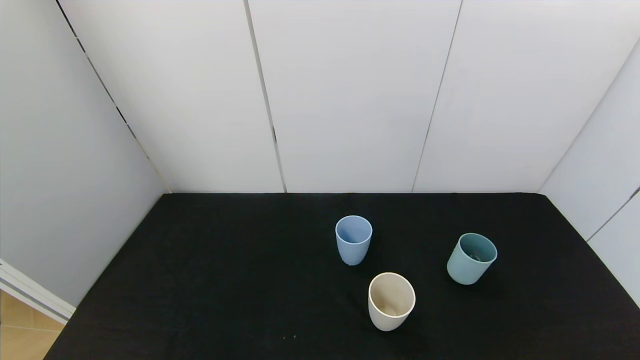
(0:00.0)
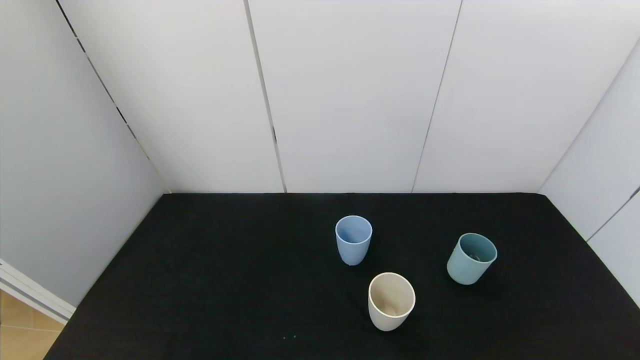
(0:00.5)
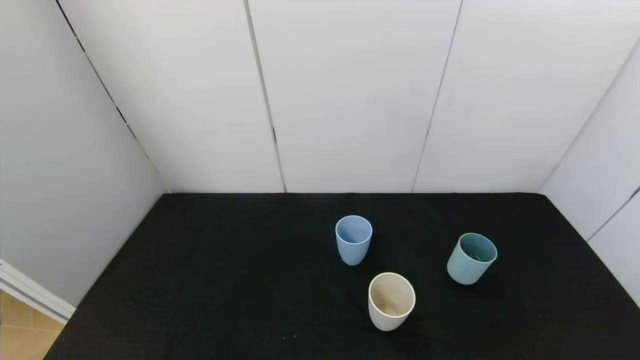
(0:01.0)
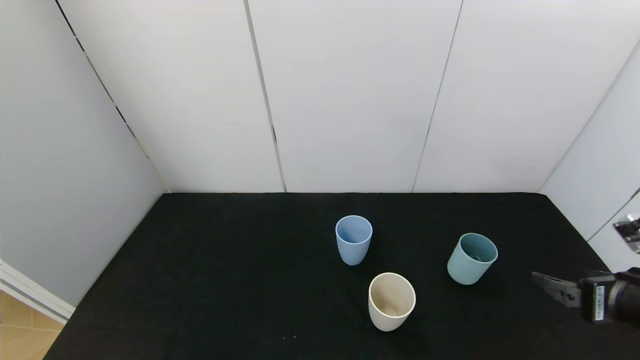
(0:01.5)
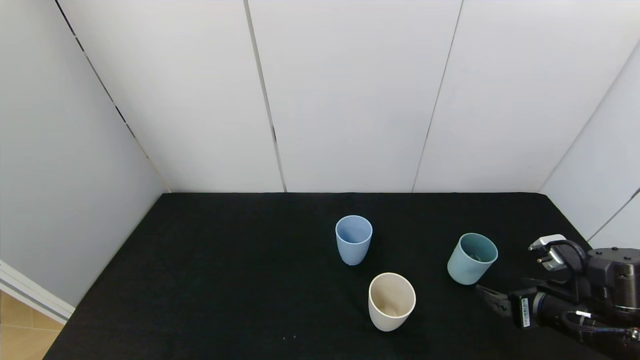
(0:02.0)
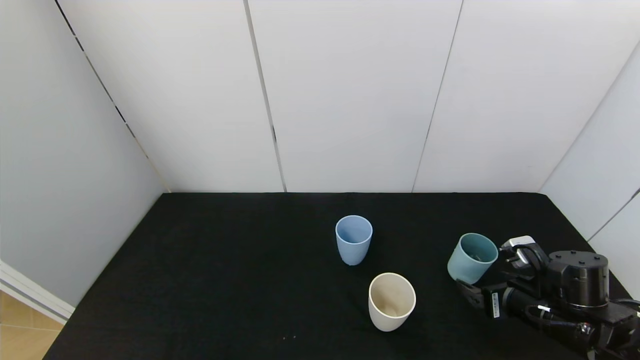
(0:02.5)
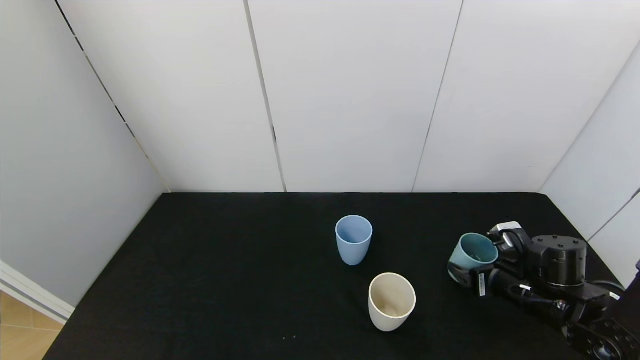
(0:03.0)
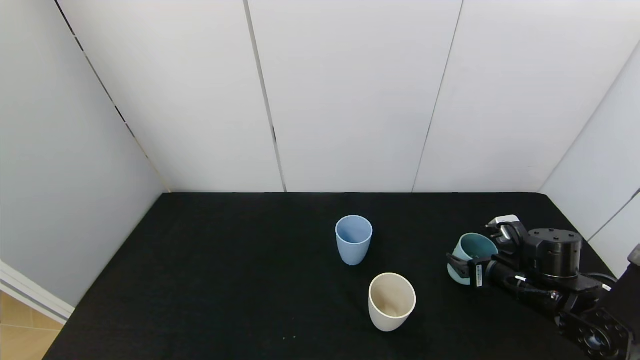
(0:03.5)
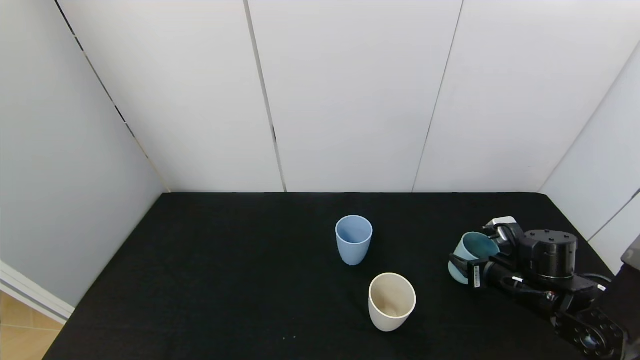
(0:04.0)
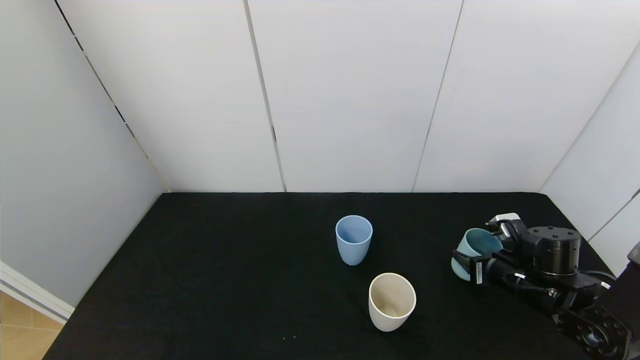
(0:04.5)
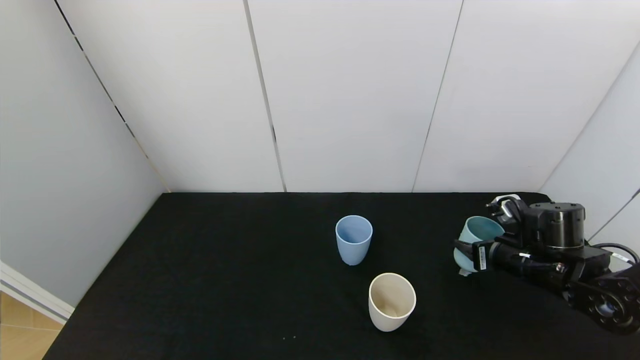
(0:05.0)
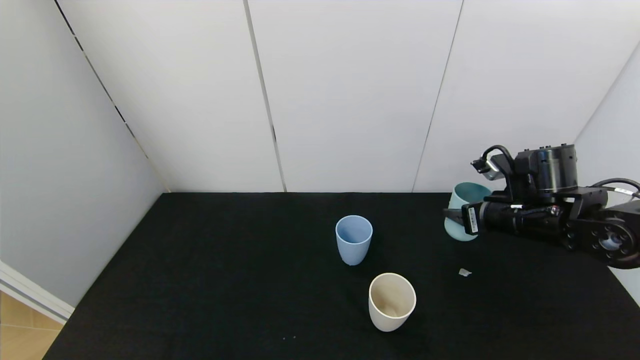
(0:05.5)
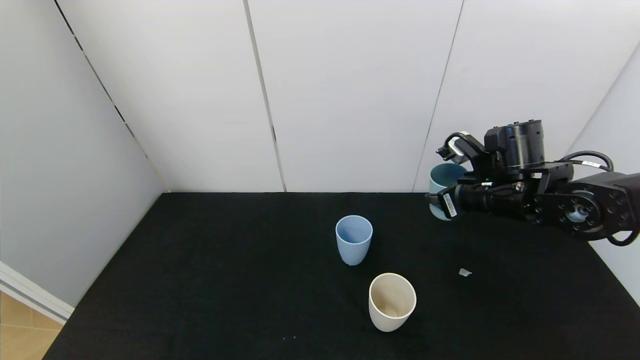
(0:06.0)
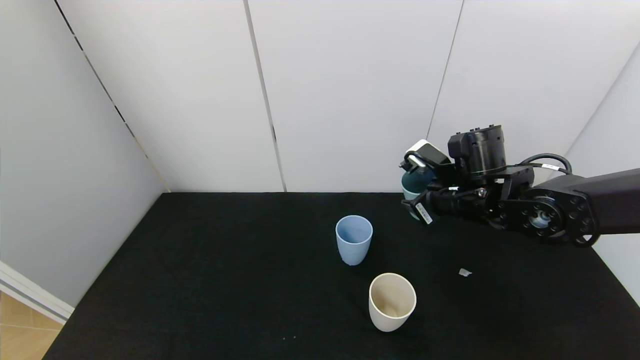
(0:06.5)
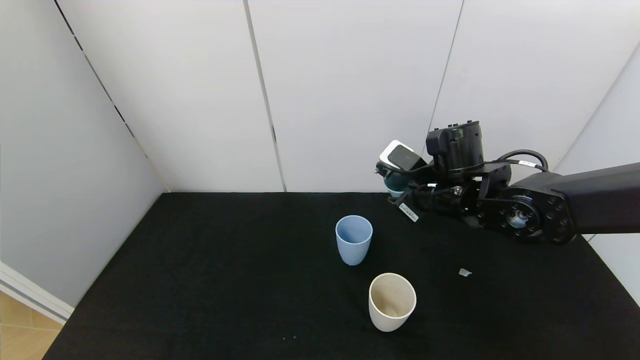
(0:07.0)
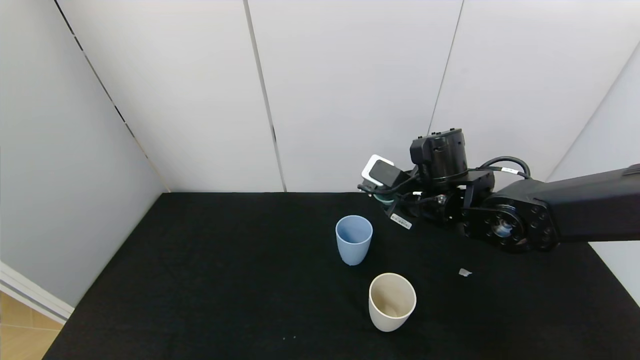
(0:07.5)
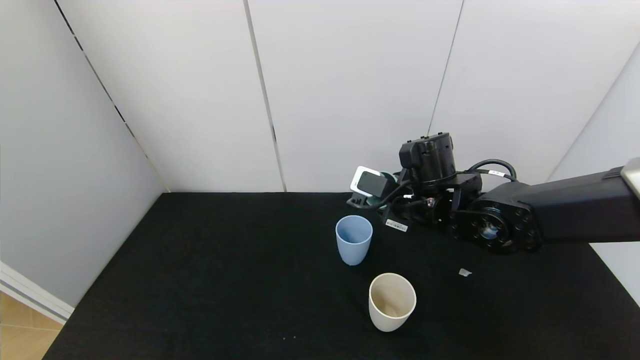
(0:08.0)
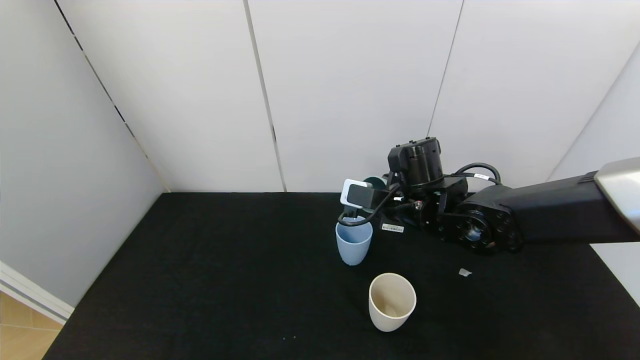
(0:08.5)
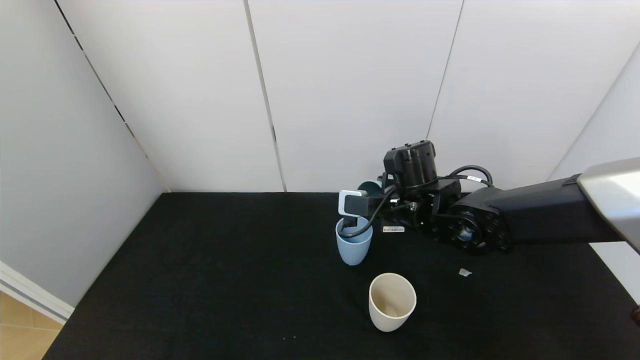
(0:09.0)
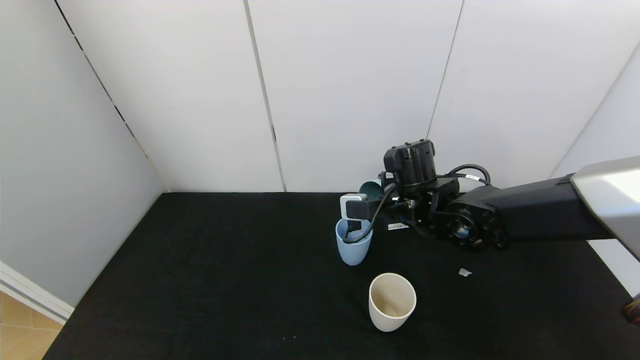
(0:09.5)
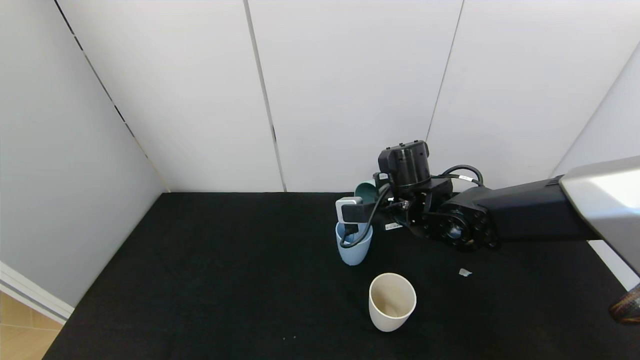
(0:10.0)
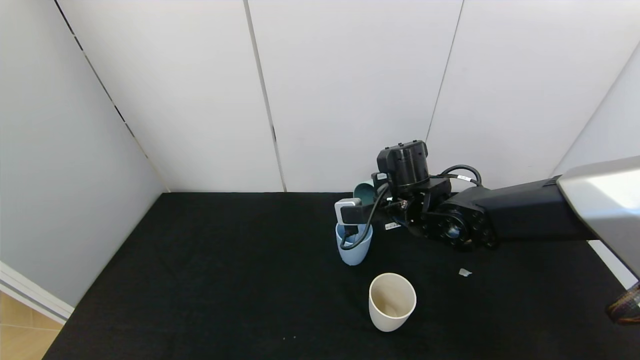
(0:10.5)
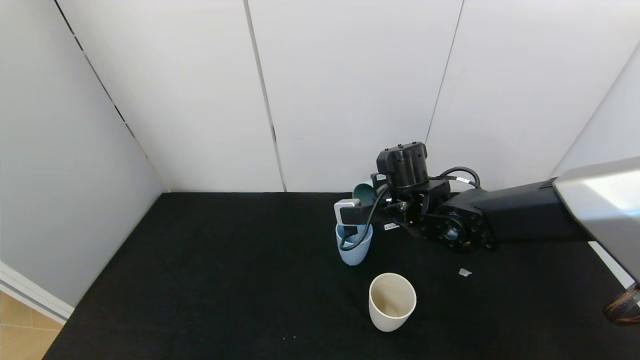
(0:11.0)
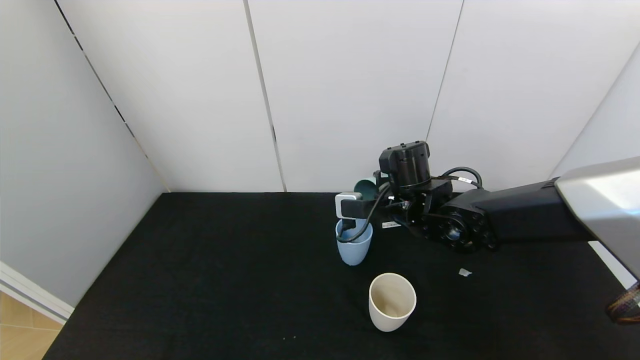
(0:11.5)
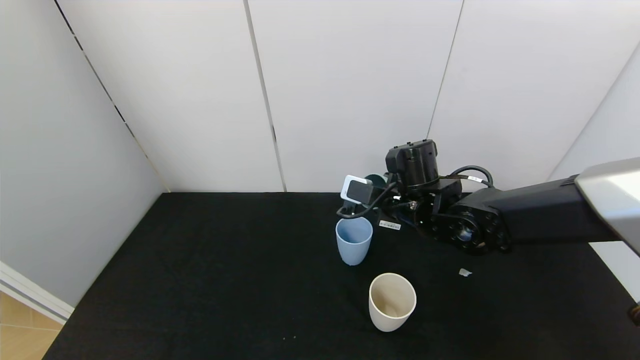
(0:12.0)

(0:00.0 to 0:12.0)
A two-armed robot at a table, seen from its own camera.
Task of the whole recording: use the gripper to pour the water into the other two cups on black table.
Step, 0:00.0 - 0:04.5: Pick up the green plastic cup with right gripper.
Step, 0:05.0 - 0:11.5: Pour water into the blue plastic cup with right gripper.
0:00.0 - 0:02.0: The right gripper travels forward by about 25 cm.
0:02.0 - 0:04.0: The right gripper heads forward, covering some 10 cm, and closes its fingers.
0:04.0 - 0:06.0: The right gripper heads upward and to the left, covering some 15 cm.
0:06.0 - 0:08.0: The right gripper travels to the left by about 10 cm.

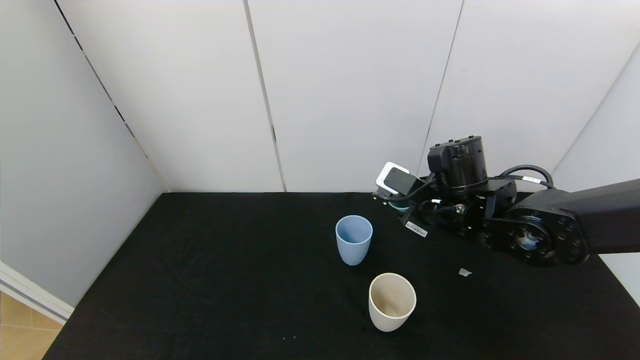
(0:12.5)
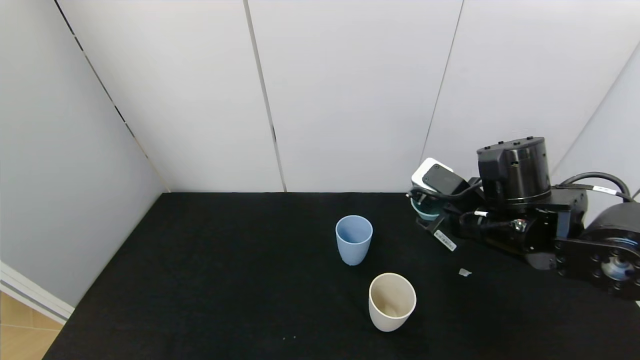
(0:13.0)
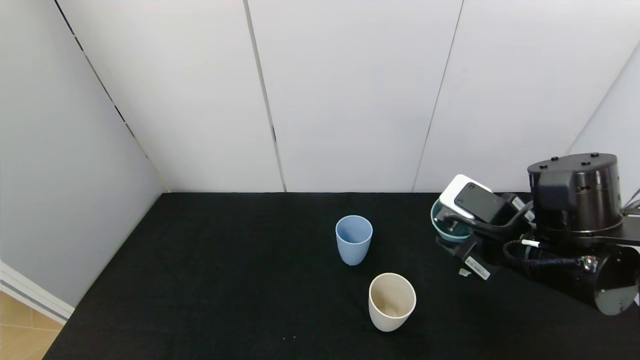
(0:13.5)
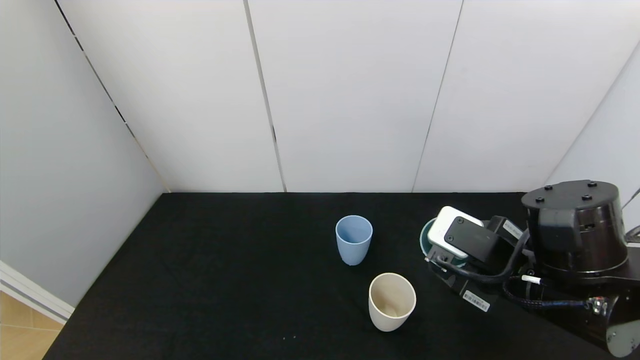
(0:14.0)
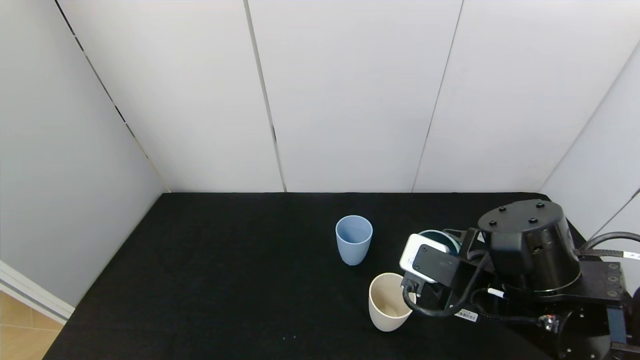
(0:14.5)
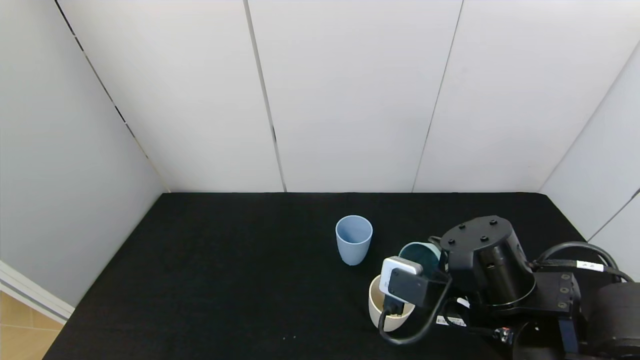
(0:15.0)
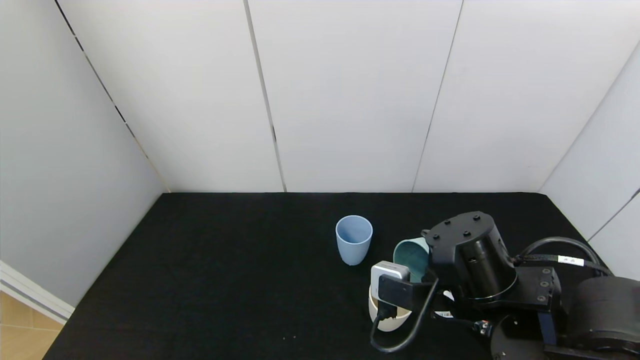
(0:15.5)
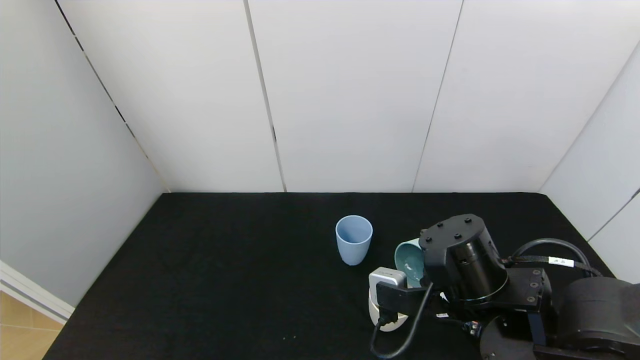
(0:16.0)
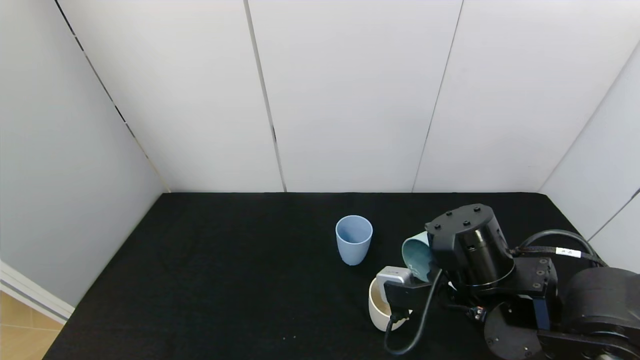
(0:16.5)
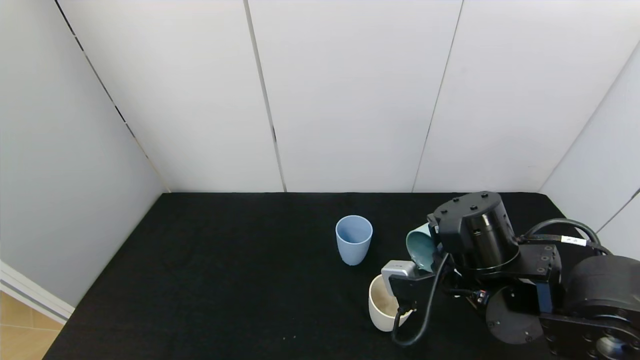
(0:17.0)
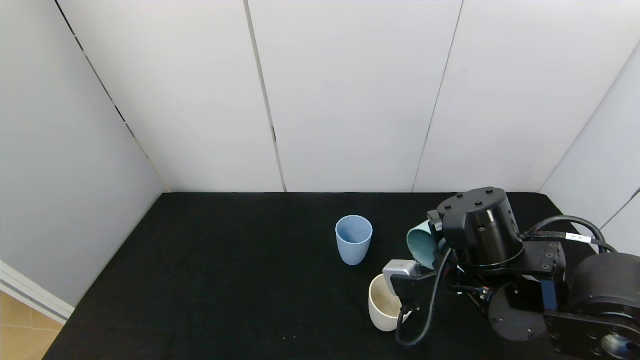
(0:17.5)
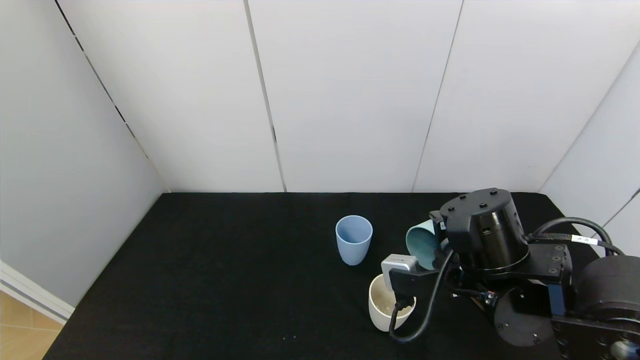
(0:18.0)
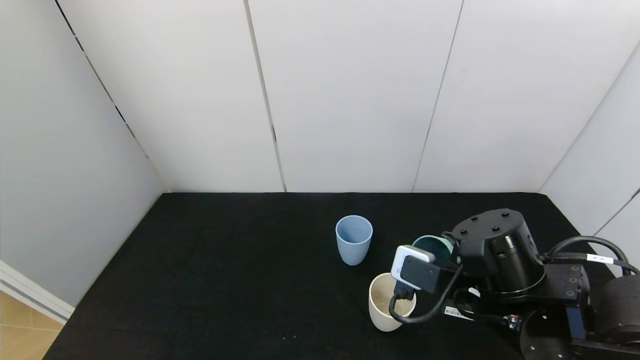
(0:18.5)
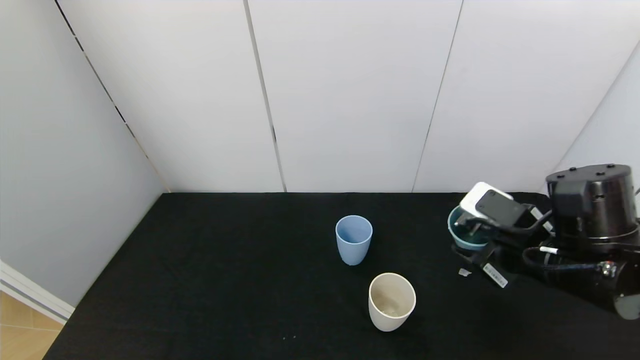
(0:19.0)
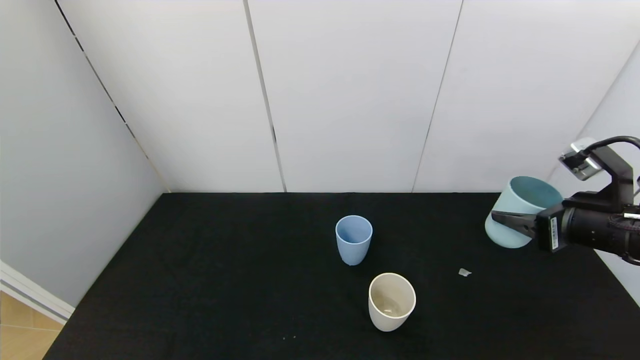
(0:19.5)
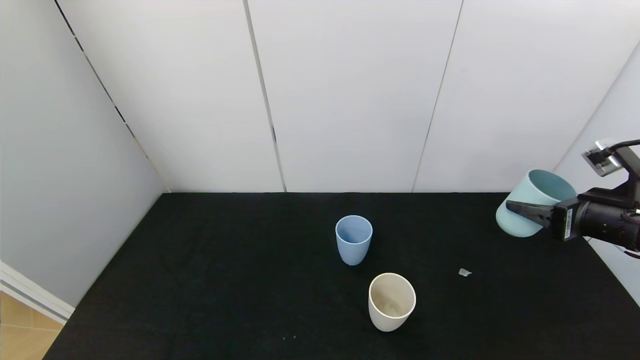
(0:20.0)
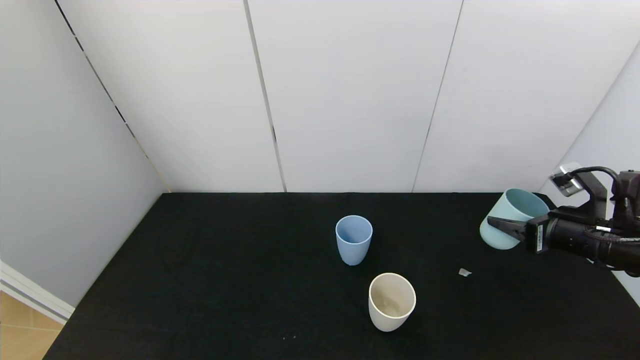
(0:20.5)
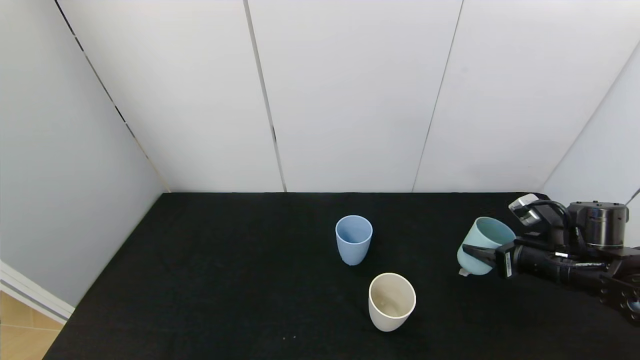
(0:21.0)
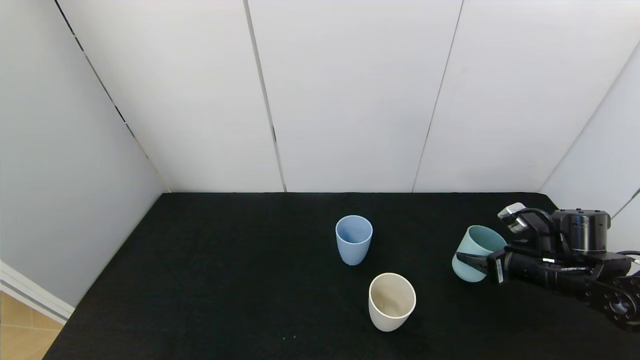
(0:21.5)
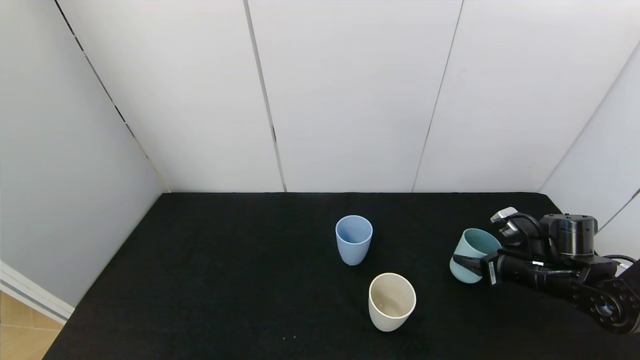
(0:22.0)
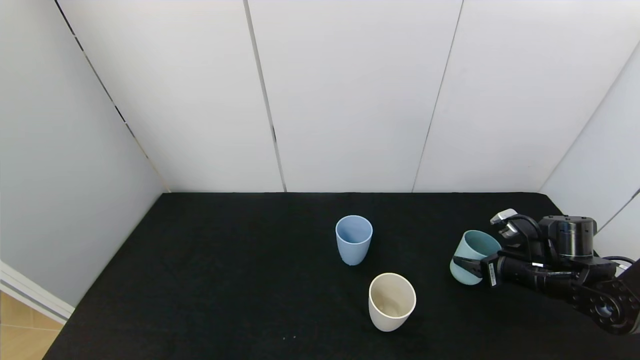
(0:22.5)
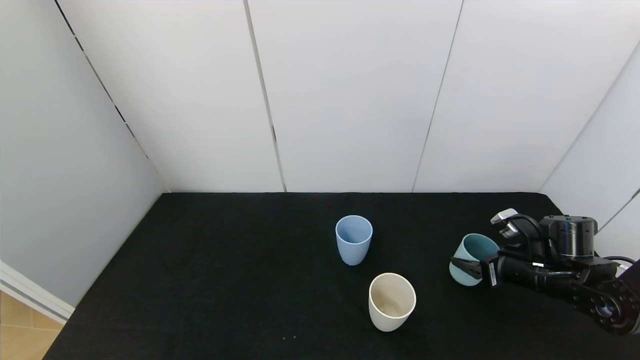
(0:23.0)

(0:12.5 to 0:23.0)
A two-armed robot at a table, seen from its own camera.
Task of the whole recording: use the gripper to pour the water into the other two cups on black table.
Step, 0:12.5 - 0:18.5: Pour water into the gray plastic cup with right gripper.
0:12.5 - 0:14.5: The right gripper heads backward, covering some 10 cm.
0:16.5 - 0:19.0: The right gripper is displaced to the right by some 10 cm.
0:19.0 - 0:21.0: The right gripper moves to the right, downward and forward, roughly 15 cm.
0:21.0 - 0:23.0: The right gripper opens.
